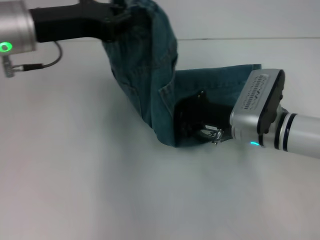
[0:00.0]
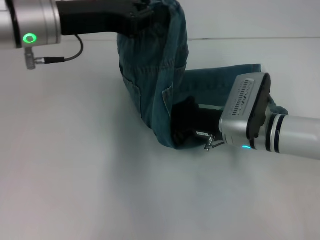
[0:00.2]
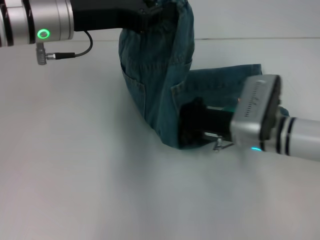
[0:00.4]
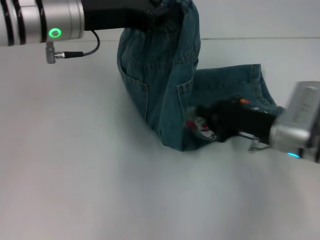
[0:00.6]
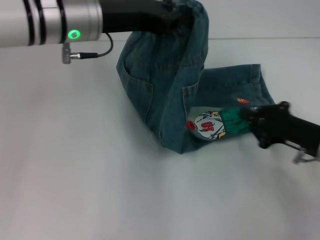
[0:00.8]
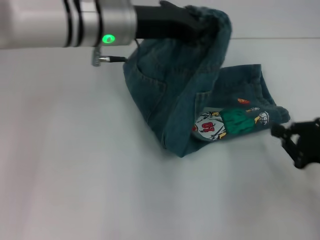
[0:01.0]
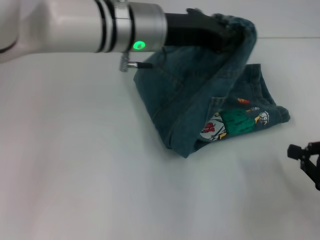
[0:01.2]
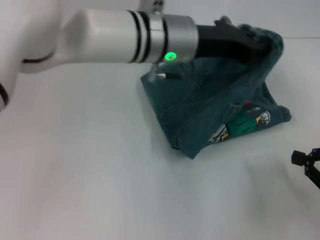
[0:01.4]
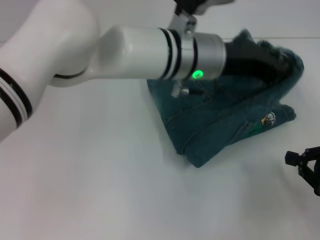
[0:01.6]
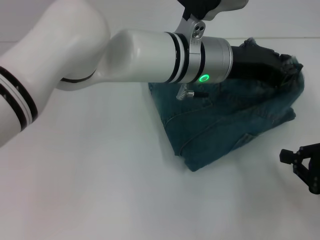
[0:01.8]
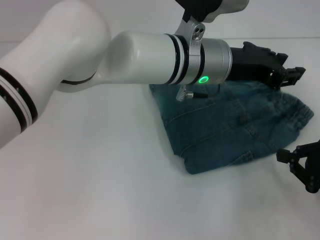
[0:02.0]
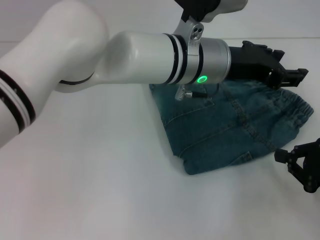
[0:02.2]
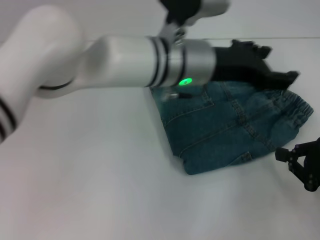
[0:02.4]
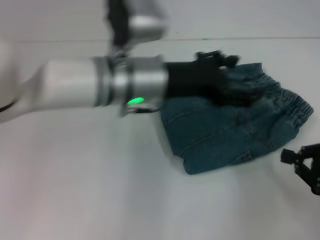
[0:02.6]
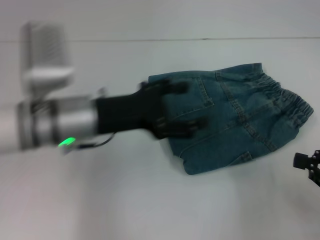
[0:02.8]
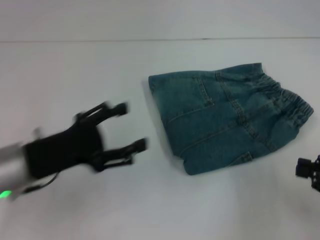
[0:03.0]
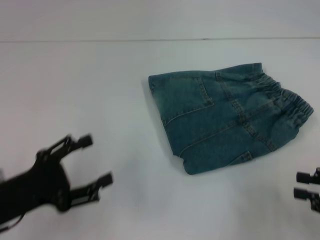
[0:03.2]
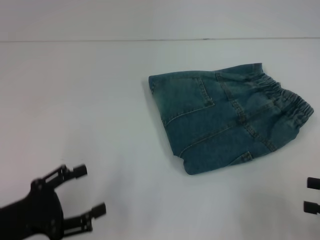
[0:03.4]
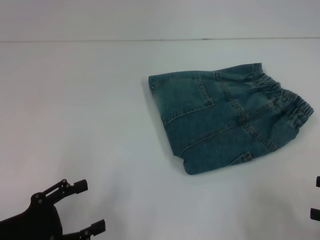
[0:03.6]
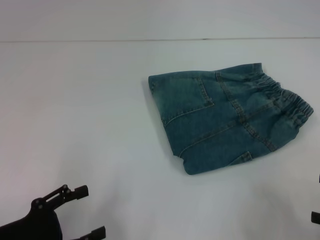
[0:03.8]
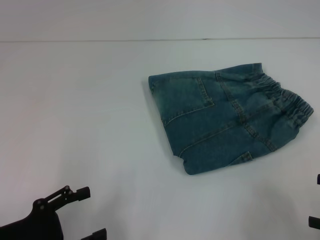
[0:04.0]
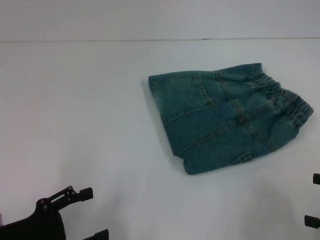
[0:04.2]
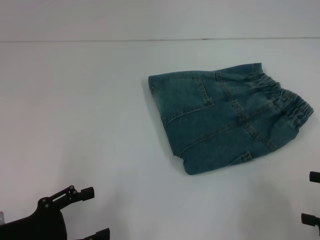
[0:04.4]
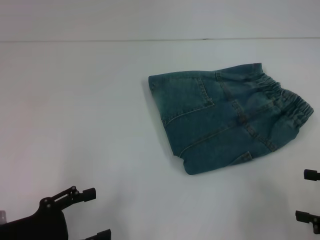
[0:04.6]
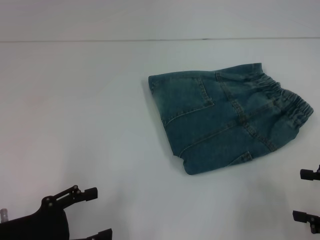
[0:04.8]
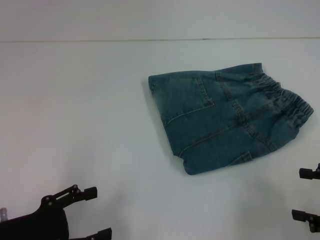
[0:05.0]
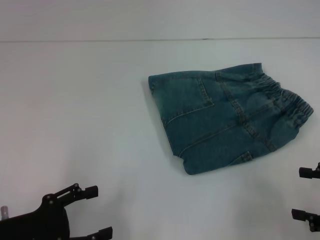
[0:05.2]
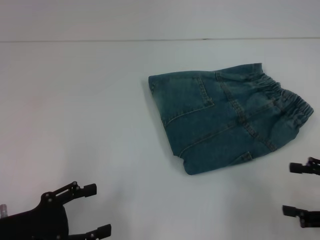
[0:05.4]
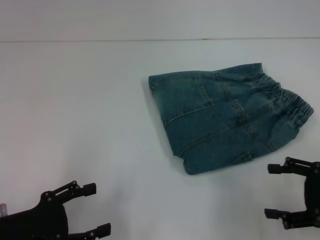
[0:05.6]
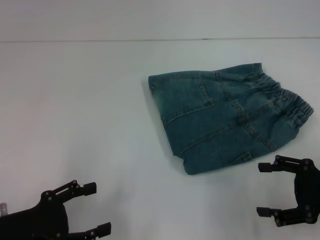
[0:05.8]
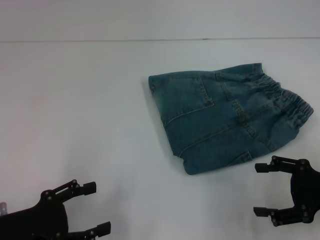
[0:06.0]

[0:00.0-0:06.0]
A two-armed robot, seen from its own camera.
Step, 0:00.6 to 0:02.4: Fold to the right with your left hand.
0:00.0 to 0:01.6: The right gripper shifts approximately 25 cm to the right and backward. Meanwhile the left gripper goes roughly 20 cm to the right.
0:01.6 to 0:03.0: The left gripper heads to the left and backward, covering about 25 cm, and opens up.
0:03.0 to 0:04.4: The left gripper moves backward and to the left, about 10 cm. Meanwhile the right gripper opens its fingers.
0:04.4 to 0:06.0: The right gripper is displaced forward and to the left by about 10 cm.

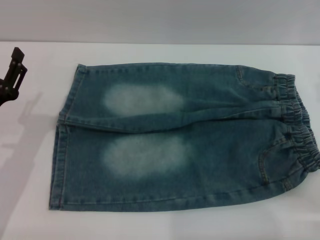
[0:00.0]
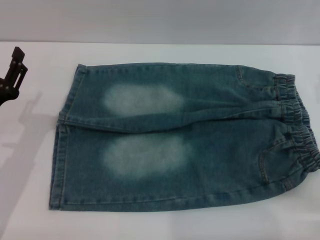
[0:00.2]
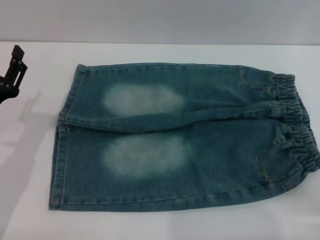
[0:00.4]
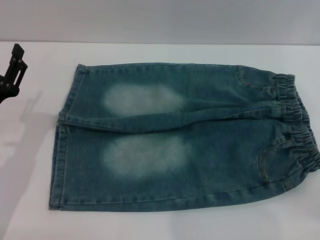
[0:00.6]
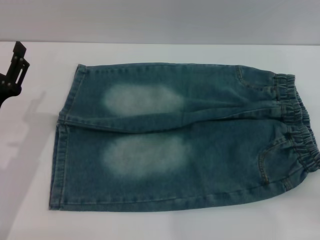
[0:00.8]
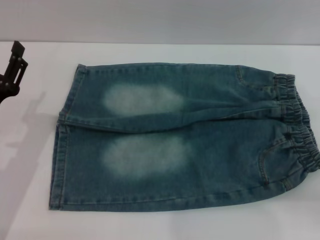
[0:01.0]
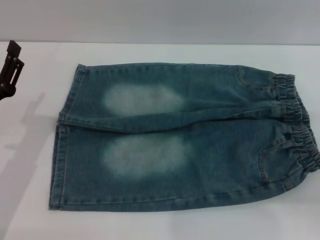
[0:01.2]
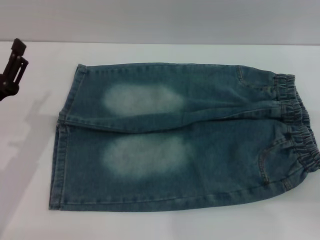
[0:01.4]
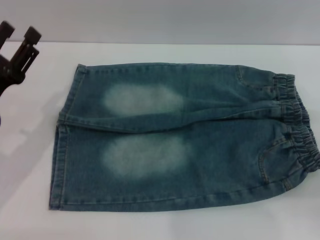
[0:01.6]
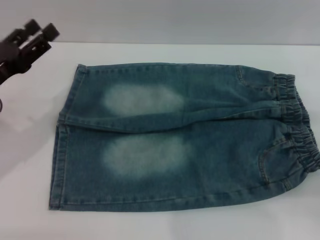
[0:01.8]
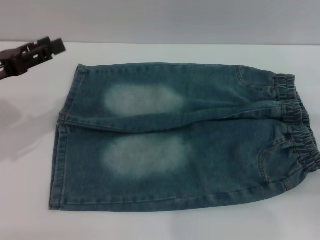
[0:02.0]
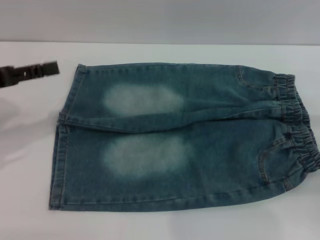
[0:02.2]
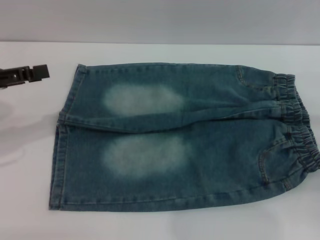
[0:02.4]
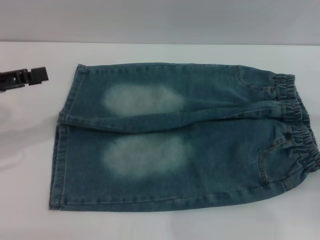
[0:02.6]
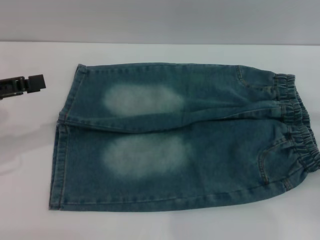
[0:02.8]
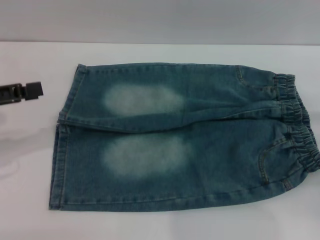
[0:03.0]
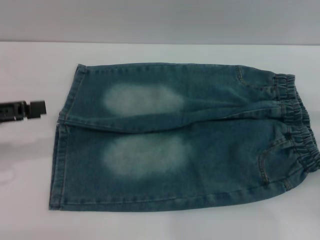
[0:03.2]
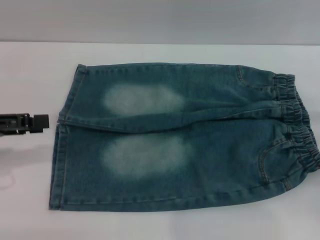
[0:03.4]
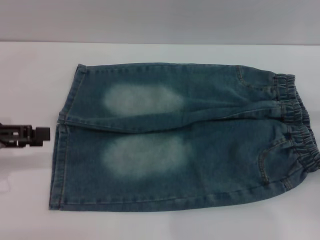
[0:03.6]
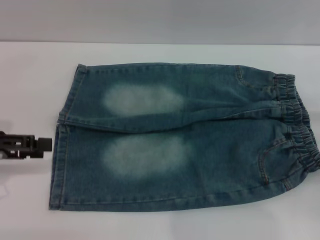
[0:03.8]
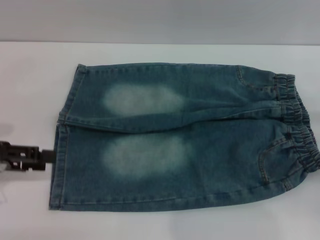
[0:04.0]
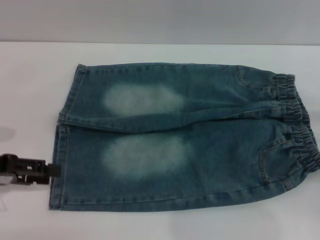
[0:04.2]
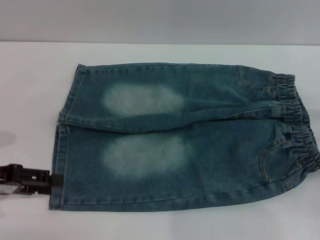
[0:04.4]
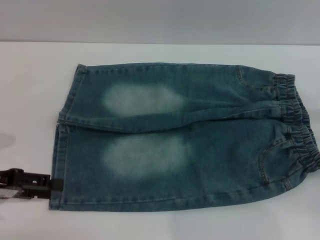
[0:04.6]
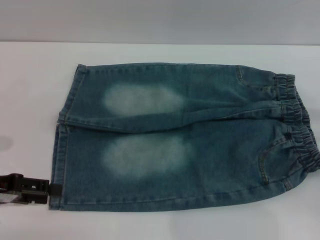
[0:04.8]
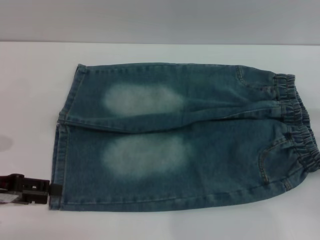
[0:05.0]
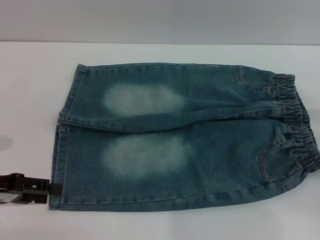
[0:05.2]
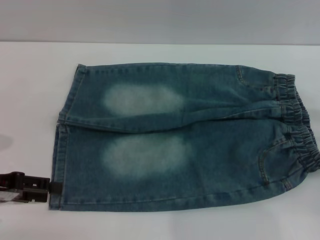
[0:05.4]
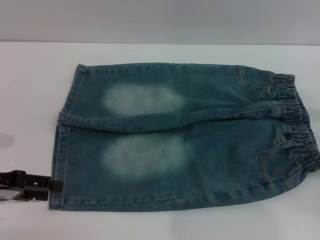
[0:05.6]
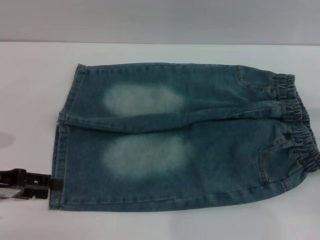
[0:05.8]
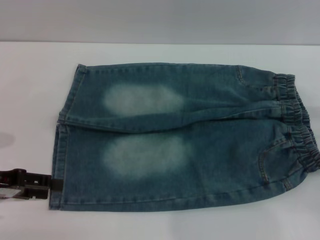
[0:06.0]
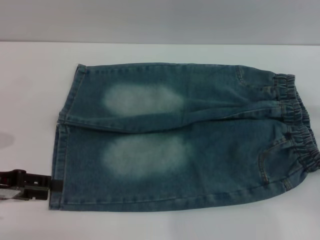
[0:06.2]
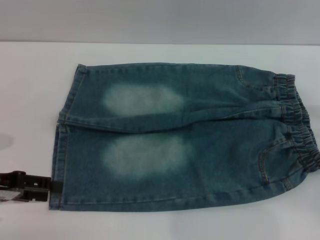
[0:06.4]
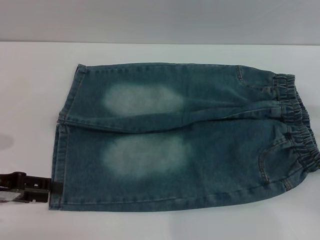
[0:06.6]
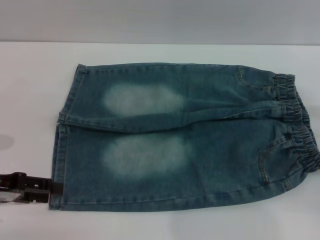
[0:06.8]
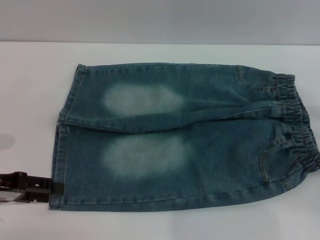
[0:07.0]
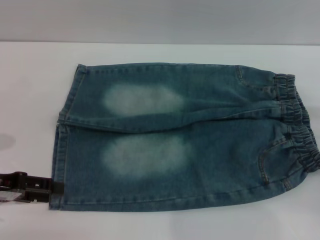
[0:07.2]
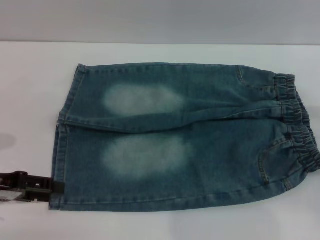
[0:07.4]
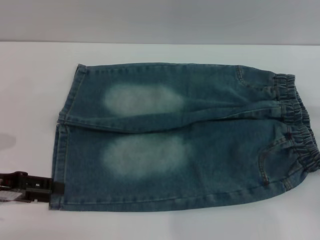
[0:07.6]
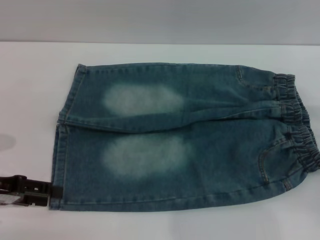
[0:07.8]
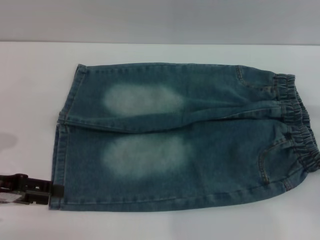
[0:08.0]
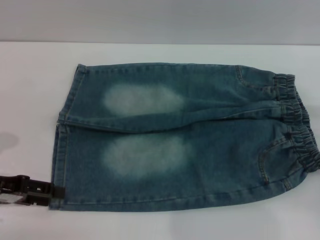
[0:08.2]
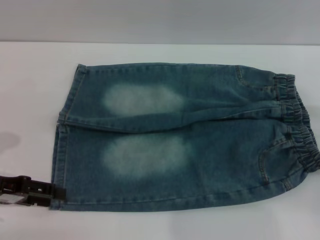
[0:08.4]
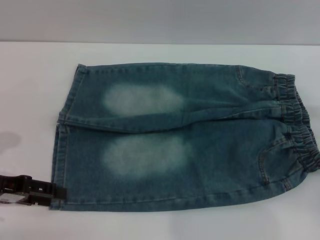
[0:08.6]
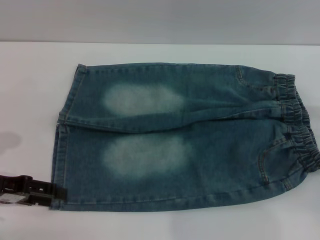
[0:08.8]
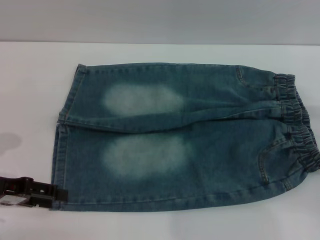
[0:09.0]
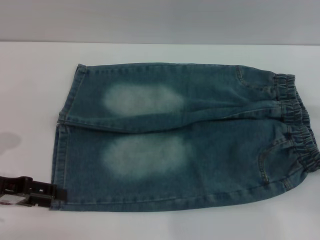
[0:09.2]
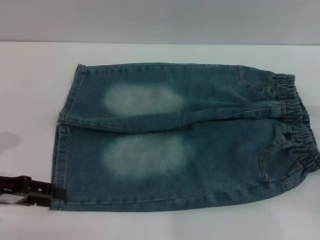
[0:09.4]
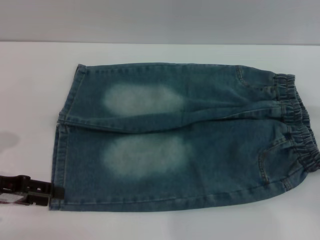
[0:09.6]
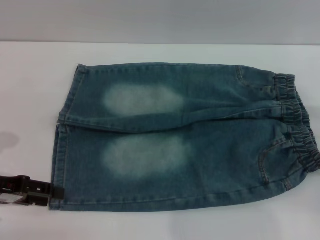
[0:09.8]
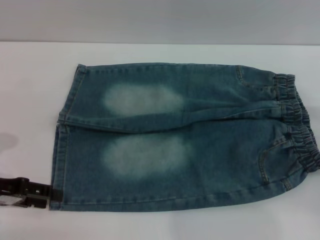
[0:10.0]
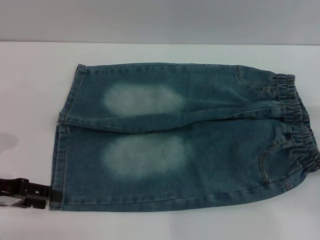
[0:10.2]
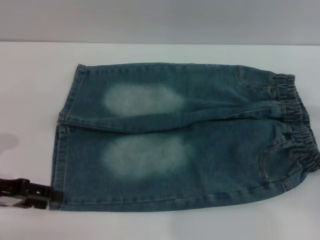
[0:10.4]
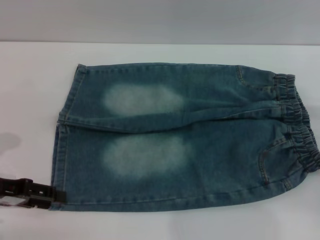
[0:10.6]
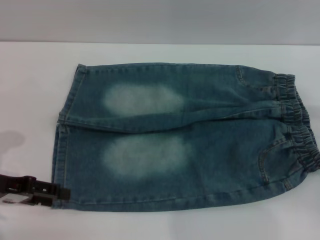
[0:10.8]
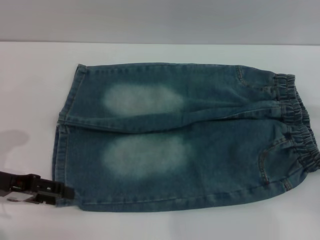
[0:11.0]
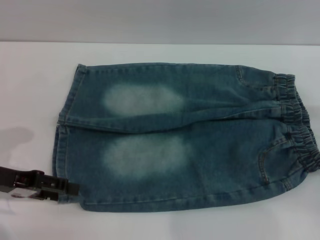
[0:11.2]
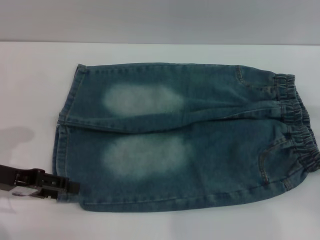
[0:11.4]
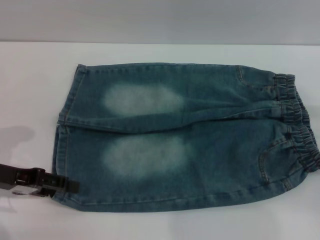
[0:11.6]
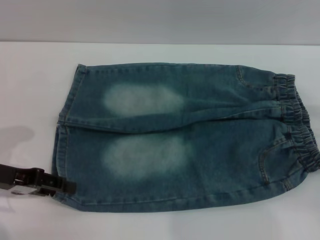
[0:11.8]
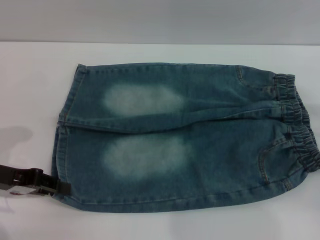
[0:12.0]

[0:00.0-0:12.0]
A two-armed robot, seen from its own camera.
0:01.6 to 0:03.0: The left gripper travels upward and to the left by approximately 10 cm.
0:03.0 to 0:04.4: The left gripper travels downward by approximately 5 cm.
0:04.4 to 0:06.0: There are only small adjustments of the grippers.
0:06.0 to 0:09.0: Both grippers stay put.
0:09.0 to 0:10.4: The two grippers keep their place.
0:10.4 to 0:12.0: The grippers stay close to where they were, moving slightly.

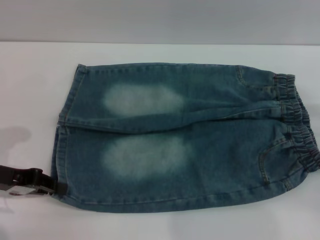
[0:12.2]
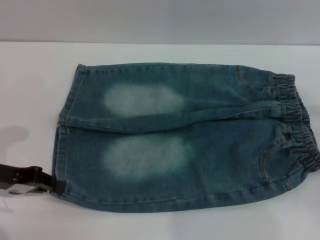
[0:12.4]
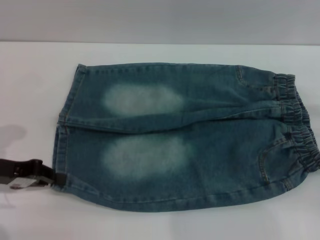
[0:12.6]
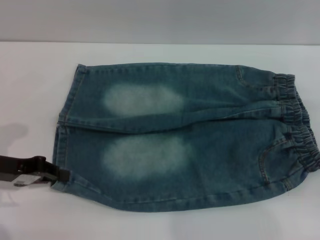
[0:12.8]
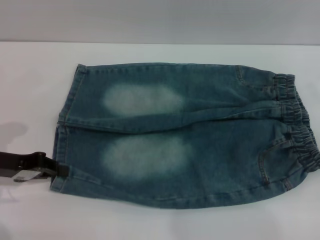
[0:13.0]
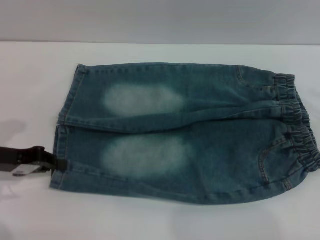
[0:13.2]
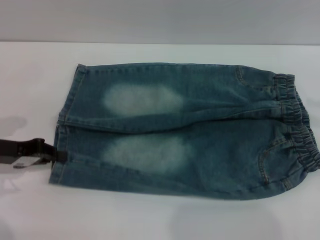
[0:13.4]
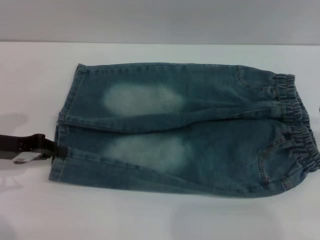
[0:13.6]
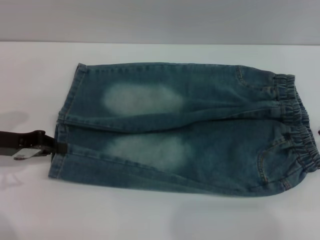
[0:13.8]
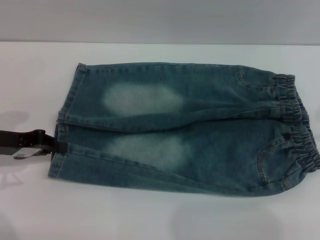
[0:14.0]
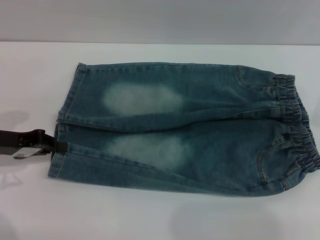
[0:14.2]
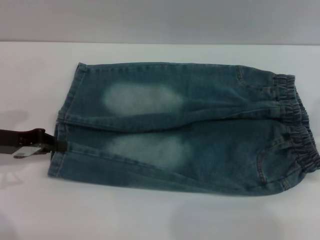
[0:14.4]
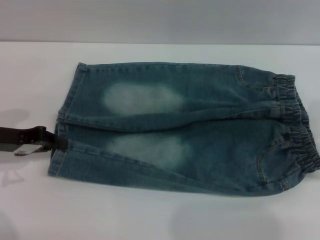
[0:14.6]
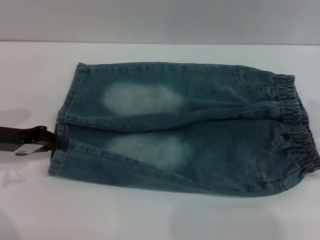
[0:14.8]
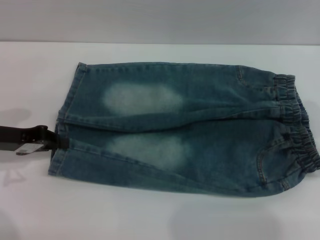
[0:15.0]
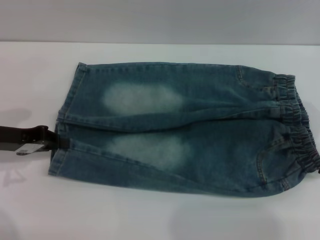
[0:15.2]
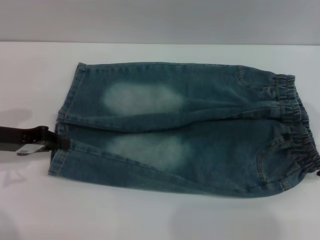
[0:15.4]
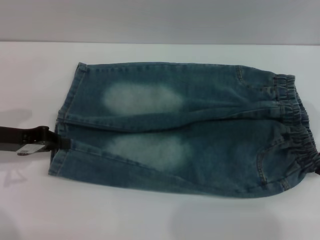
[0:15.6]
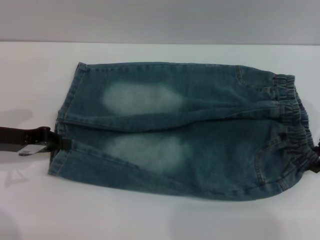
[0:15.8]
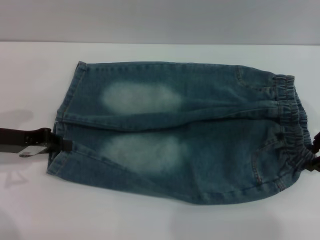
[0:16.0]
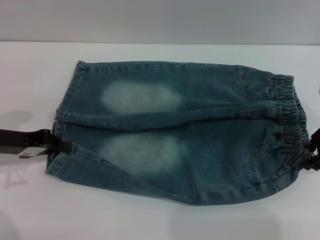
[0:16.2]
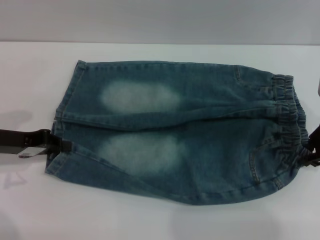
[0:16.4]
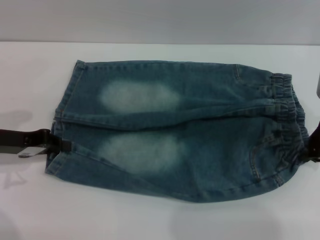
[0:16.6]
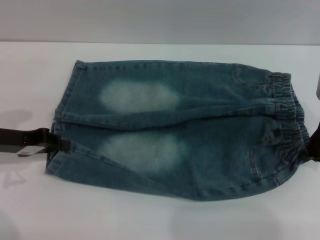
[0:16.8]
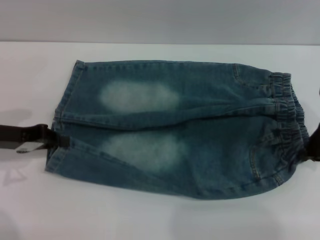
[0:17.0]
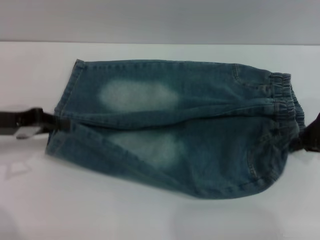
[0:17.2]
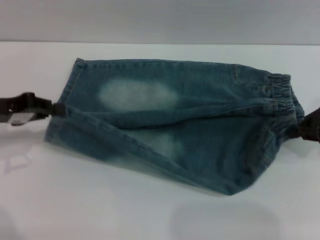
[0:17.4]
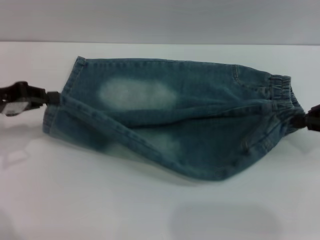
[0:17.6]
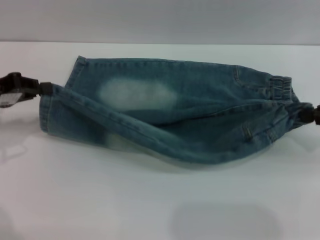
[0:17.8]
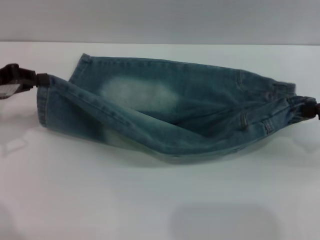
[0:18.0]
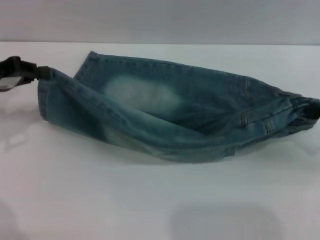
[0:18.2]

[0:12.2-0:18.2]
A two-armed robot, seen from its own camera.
Step, 0:12.6 to 0:16.6: Grasp the right lower side of the waistband of the shorts with right gripper.
0:12.2 to 0:13.8: The right gripper heads upward and forward, covering some 15 cm.
0:15.2 to 0:16.6: The grippers move only a little.
0:16.6 to 0:18.2: The left gripper moves upward, about 5 cm; the right gripper heads to the right and backward, covering about 10 cm, and closes.
